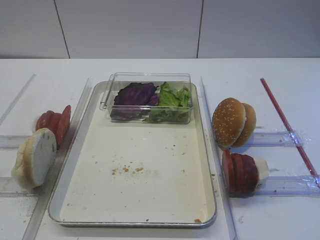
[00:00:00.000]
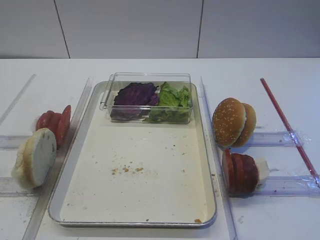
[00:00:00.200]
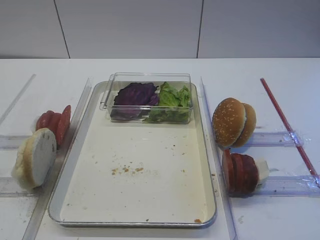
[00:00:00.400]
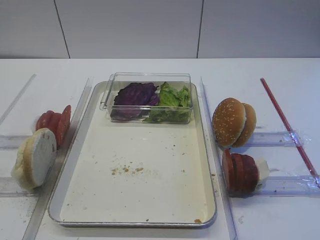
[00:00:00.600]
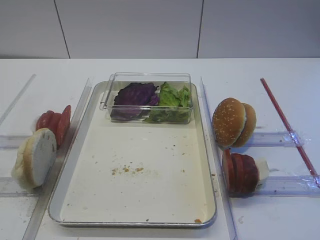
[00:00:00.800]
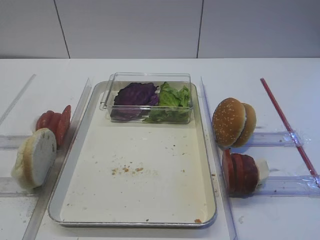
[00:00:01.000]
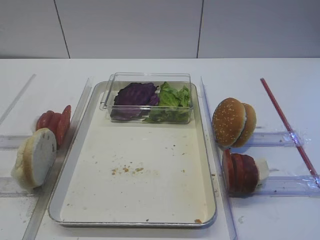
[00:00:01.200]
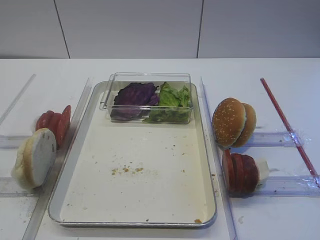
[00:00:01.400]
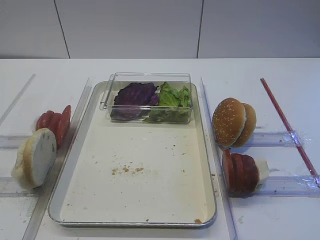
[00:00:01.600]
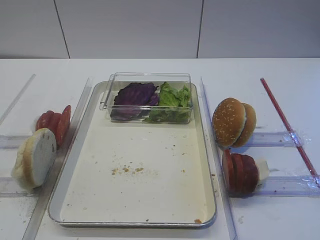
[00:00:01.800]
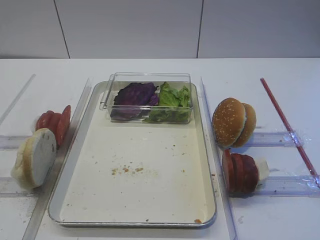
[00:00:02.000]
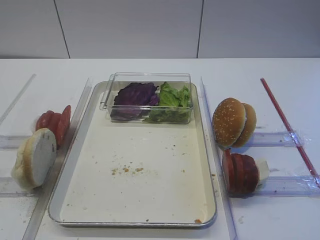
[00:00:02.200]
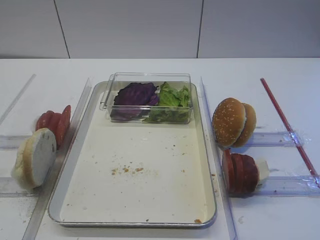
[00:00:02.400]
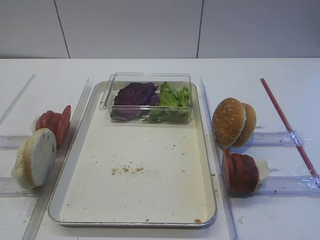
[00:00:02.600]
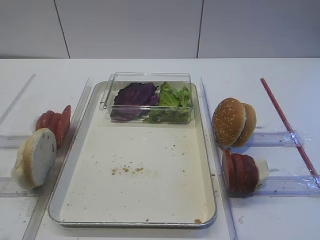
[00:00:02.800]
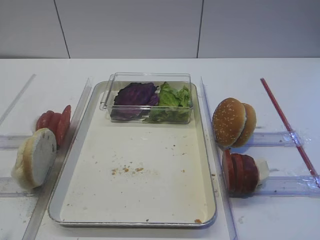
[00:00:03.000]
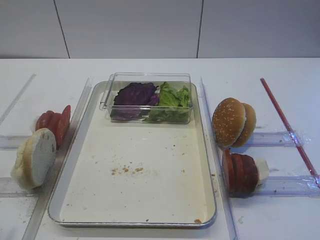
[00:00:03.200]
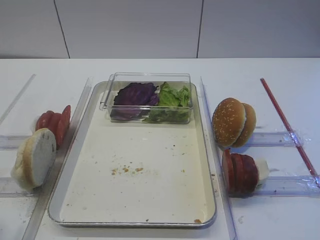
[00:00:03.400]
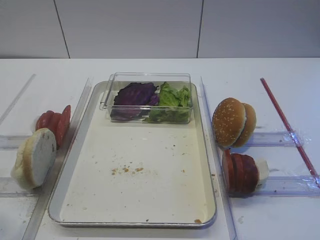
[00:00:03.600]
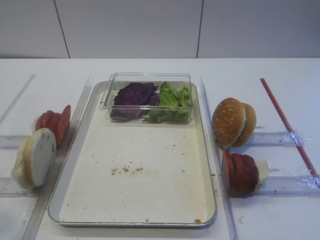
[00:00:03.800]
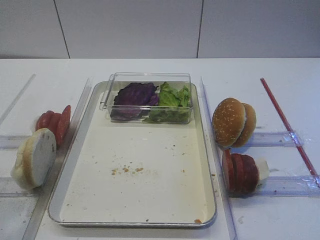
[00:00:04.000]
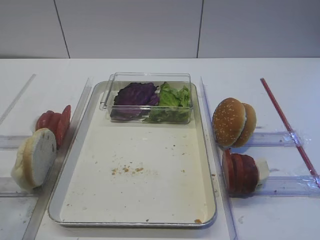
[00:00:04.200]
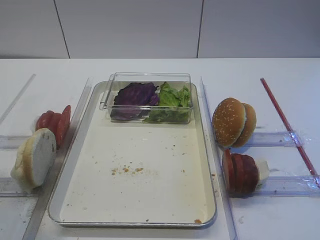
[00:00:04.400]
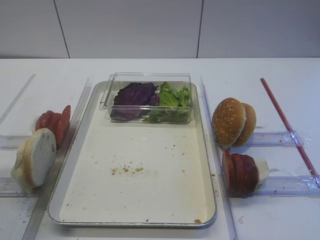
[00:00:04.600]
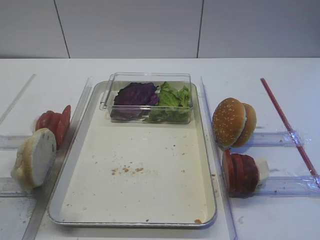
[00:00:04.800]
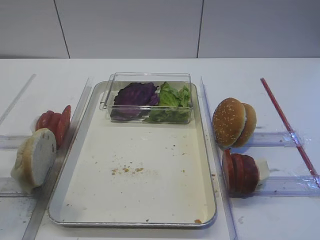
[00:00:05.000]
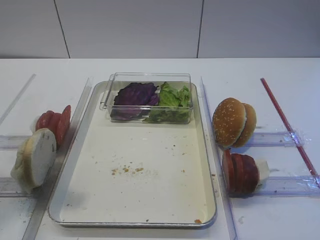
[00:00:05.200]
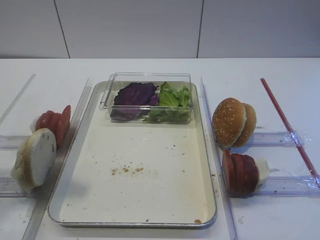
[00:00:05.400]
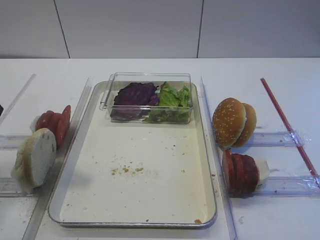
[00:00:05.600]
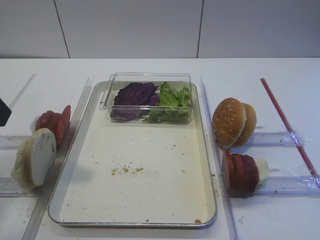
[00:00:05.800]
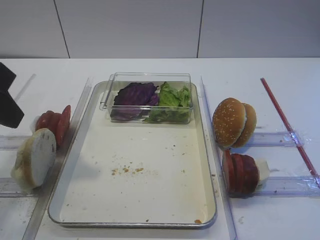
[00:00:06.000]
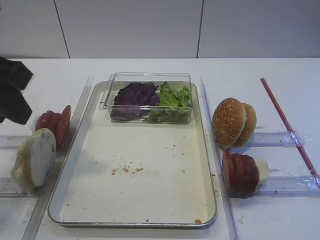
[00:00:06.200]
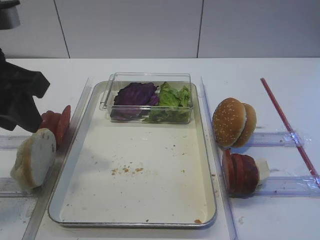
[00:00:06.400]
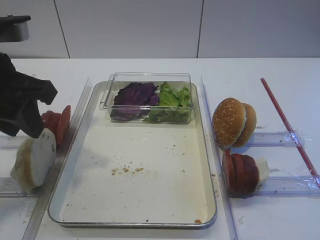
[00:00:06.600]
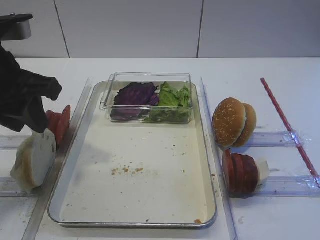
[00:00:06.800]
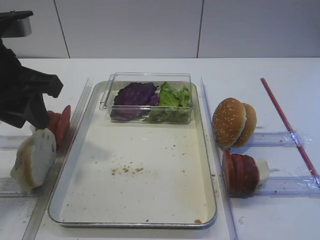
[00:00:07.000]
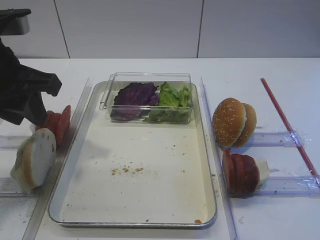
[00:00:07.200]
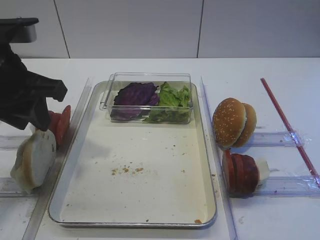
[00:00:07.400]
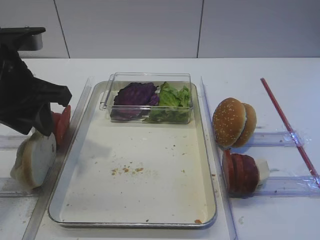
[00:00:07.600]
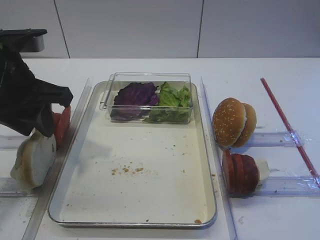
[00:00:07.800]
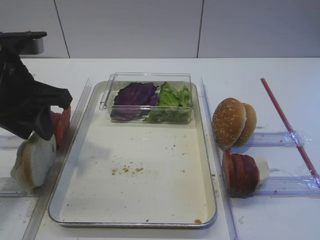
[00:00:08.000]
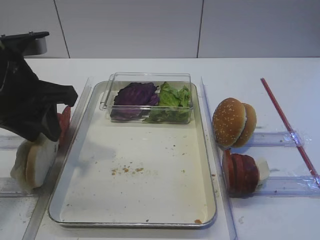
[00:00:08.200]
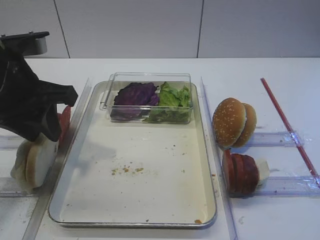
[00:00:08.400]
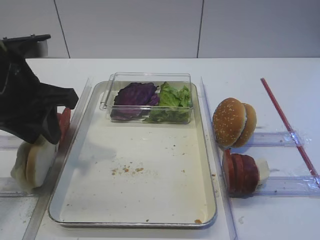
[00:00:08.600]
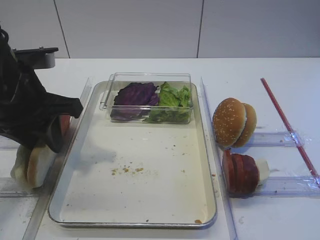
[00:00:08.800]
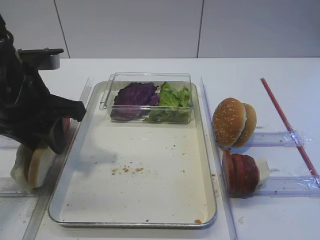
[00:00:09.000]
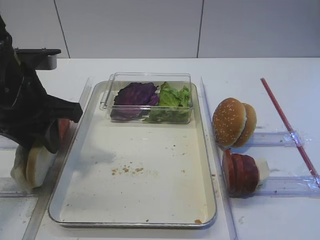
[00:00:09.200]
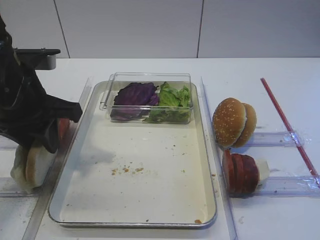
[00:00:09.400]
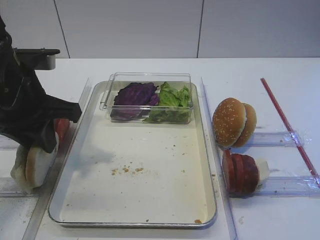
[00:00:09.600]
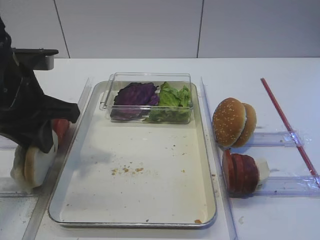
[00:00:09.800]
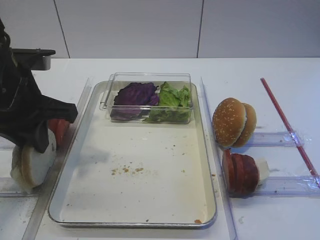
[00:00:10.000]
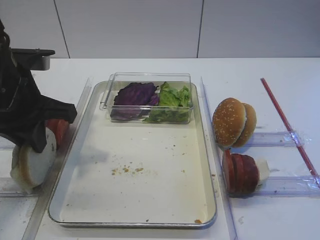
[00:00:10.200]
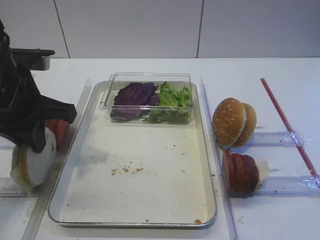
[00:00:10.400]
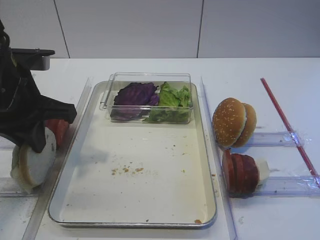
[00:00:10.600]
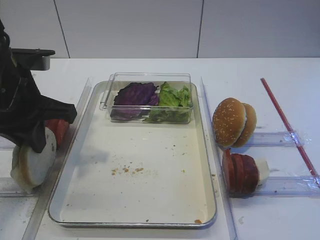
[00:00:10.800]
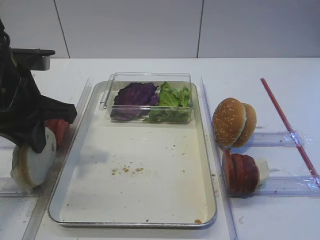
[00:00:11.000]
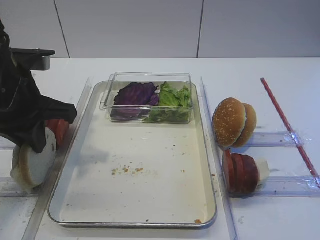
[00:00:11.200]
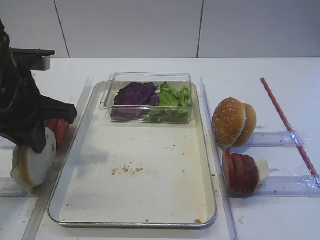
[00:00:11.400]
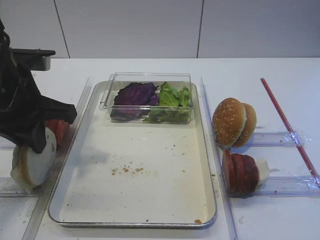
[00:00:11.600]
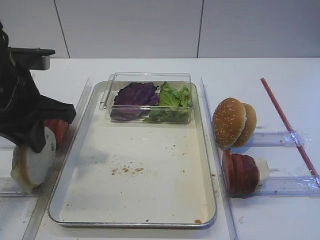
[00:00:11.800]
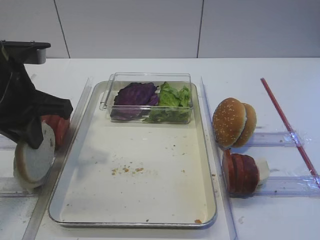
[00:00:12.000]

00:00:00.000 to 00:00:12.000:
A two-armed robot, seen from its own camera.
00:00:03.000 to 00:00:04.400: The left gripper moves forward, about 5 cm, and closes its fingers.
00:00:04.400 to 00:00:06.000: The left gripper goes about 15 cm forward.
00:00:06.000 to 00:00:07.600: The left gripper shifts roughly 10 cm forward and downward.
00:00:07.600 to 00:00:09.000: The grippers move only a little.
00:00:09.000 to 00:00:10.400: The left gripper closes up.
00:00:10.400 to 00:00:12.000: The two grippers keep their place.

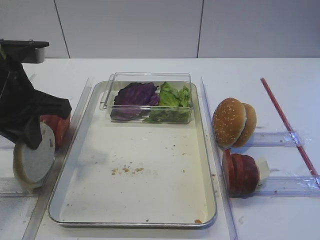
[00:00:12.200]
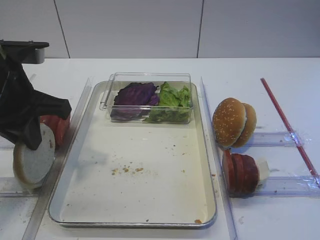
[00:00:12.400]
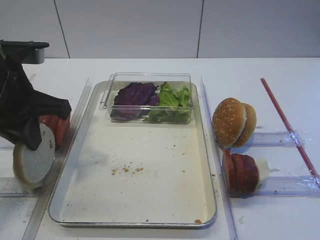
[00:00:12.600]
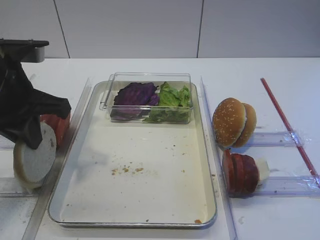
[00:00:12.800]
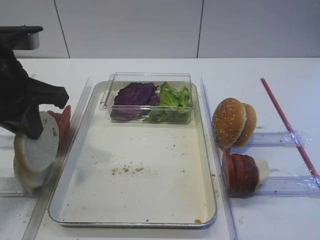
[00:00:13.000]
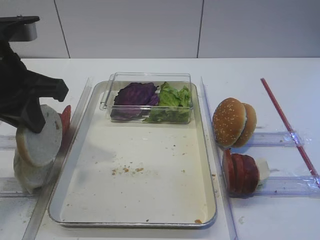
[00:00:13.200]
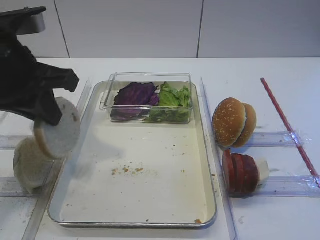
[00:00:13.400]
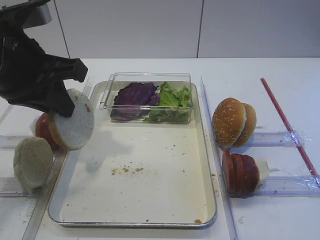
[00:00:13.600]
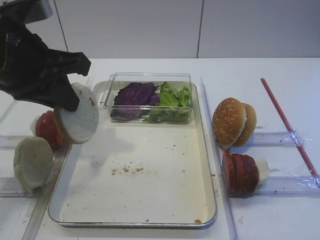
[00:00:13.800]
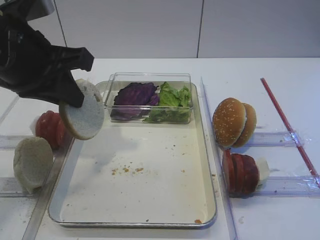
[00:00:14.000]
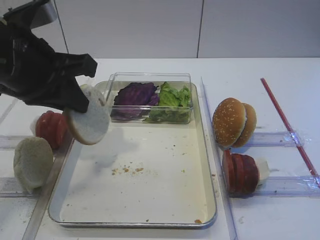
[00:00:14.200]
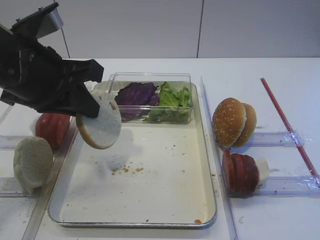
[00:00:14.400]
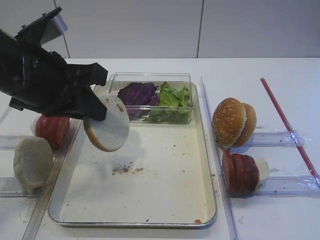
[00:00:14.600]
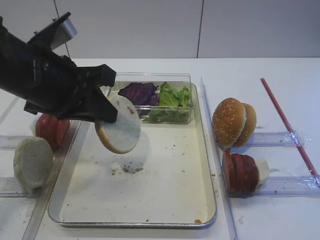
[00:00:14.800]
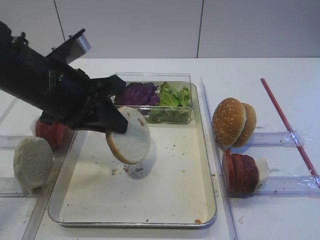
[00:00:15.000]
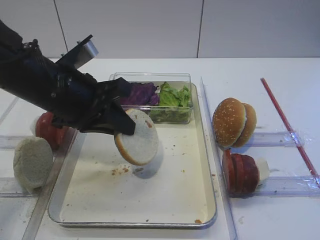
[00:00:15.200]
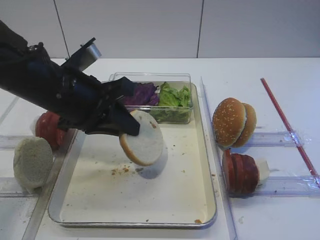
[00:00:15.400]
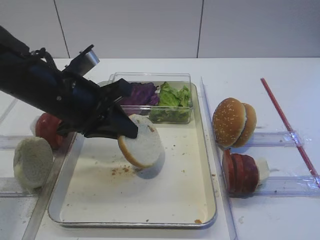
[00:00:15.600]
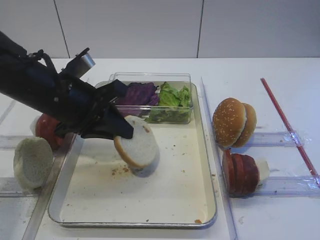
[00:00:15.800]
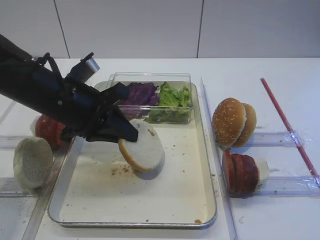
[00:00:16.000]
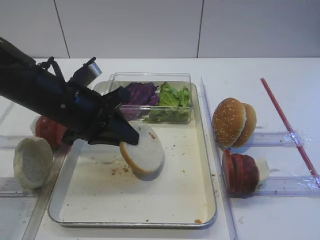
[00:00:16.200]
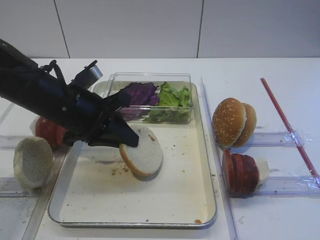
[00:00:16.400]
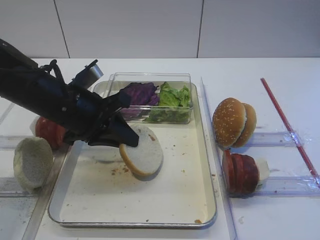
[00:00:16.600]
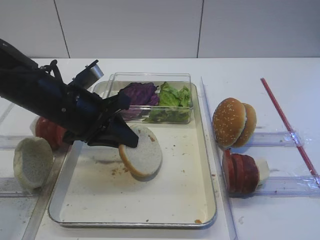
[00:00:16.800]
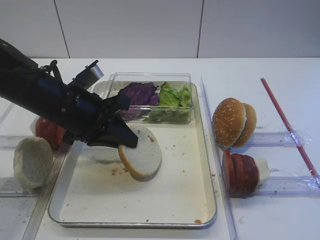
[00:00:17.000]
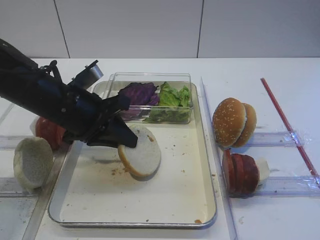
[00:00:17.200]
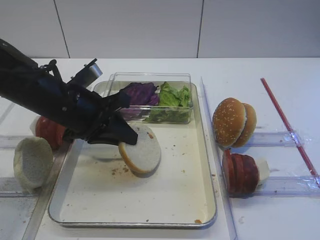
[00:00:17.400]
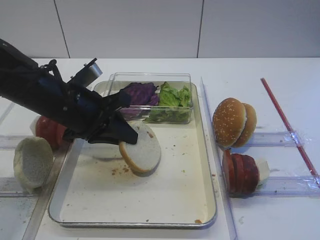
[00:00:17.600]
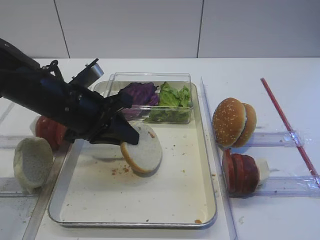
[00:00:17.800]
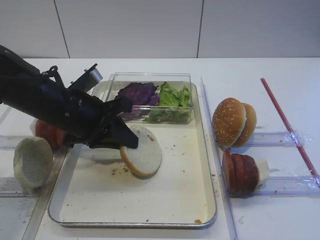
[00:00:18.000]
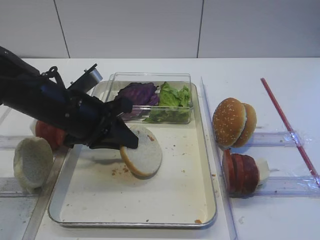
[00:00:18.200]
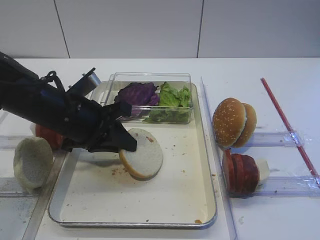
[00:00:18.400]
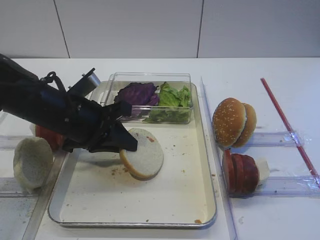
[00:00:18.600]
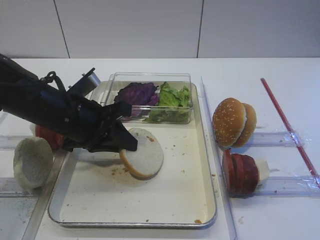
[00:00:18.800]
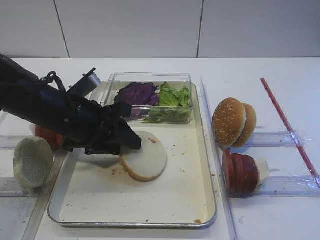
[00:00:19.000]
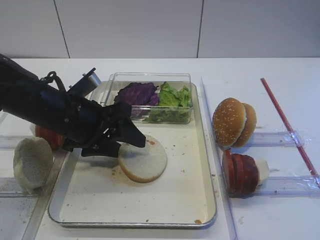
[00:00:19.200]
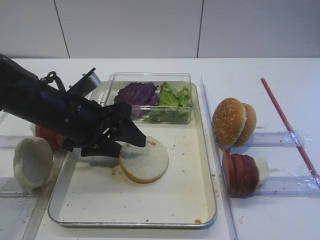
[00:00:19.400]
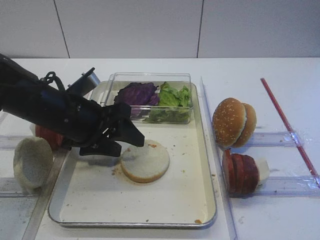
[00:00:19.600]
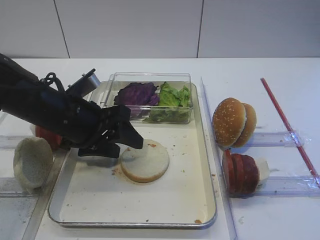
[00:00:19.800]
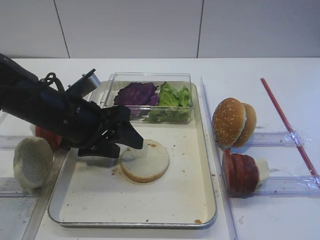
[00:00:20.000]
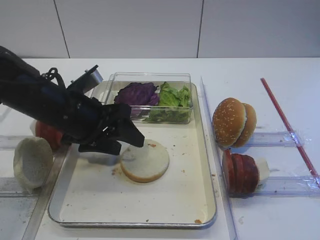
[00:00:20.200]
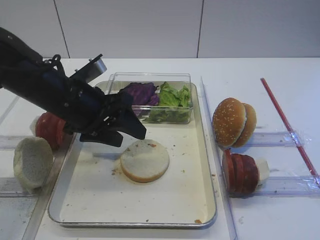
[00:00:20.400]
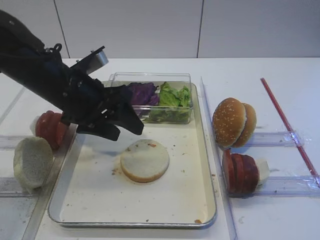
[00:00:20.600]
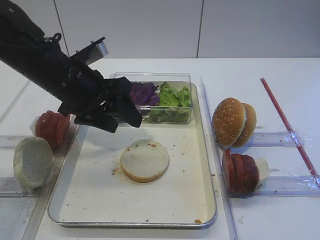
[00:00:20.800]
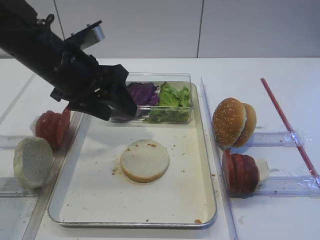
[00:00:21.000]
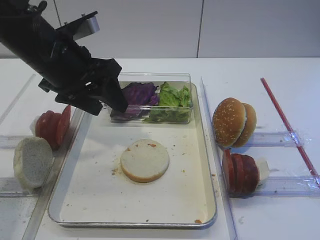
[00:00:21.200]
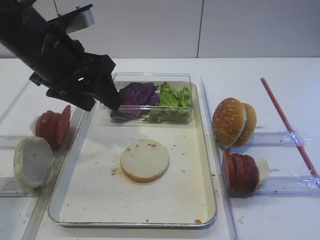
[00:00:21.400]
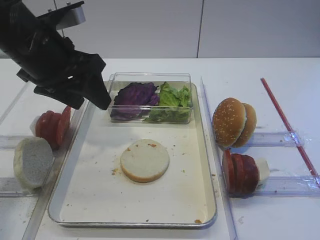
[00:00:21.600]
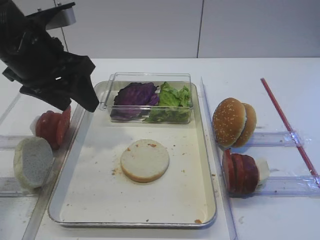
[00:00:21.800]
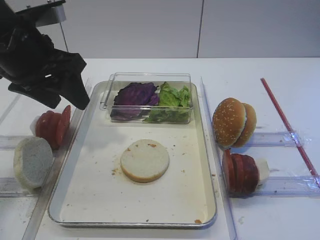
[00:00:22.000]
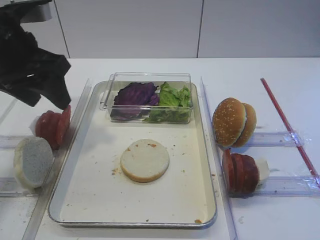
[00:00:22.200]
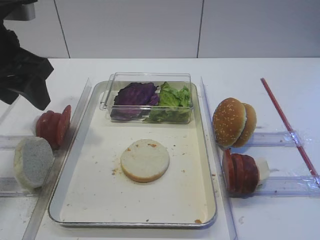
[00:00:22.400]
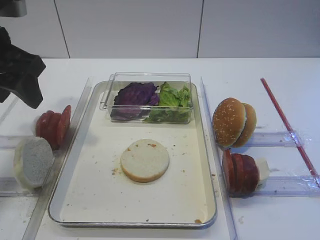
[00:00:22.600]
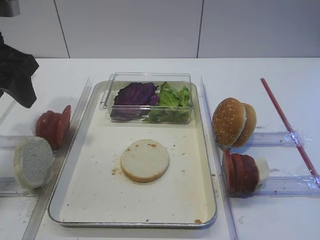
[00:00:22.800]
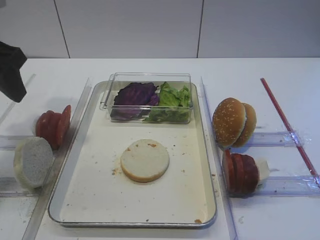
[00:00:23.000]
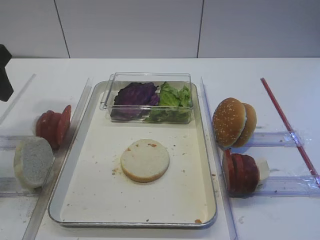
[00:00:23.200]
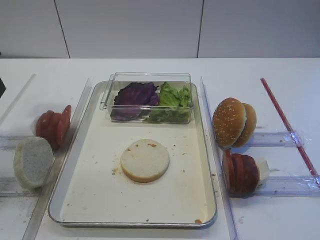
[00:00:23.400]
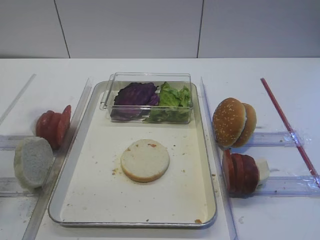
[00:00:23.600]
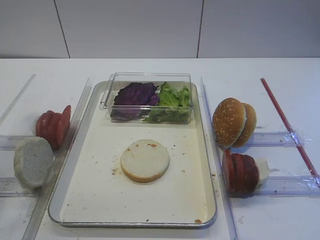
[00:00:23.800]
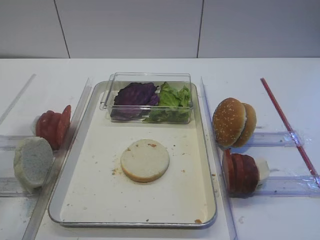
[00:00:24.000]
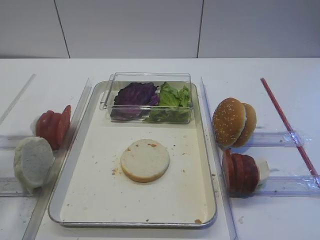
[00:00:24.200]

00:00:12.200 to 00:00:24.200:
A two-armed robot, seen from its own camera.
Step, 00:00:13.400 to 00:00:20.200: Place the bread slice on the tray with the left gripper.
00:00:13.800 to 00:00:15.200: The left gripper is displaced downward by about 5 cm.
00:00:15.200 to 00:00:16.600: The left gripper ends up about 5 cm from where it was.
00:00:16.600 to 00:00:18.200: Both grippers stay put.
00:00:18.200 to 00:00:19.800: The left gripper opens its fingers.
00:00:19.800 to 00:00:21.200: The left gripper shifts about 10 cm upward.
00:00:21.200 to 00:00:22.600: The left gripper heads to the left, covering roughly 10 cm.
00:00:22.600 to 00:00:24.200: The left gripper moves backward, some 10 cm.
